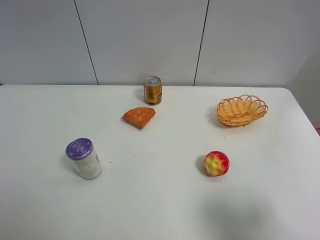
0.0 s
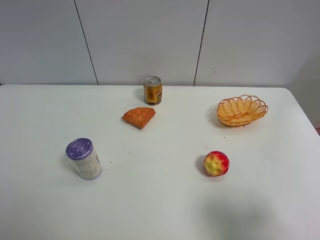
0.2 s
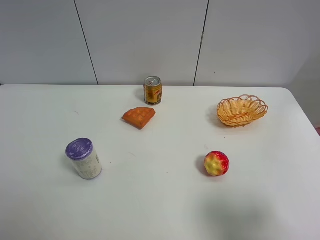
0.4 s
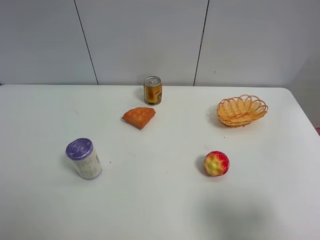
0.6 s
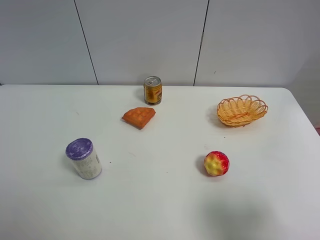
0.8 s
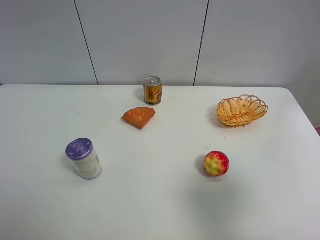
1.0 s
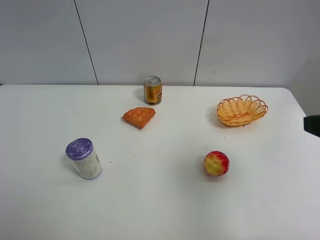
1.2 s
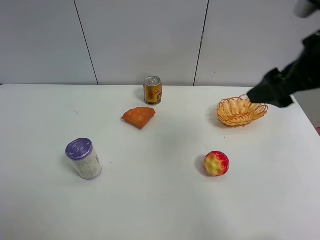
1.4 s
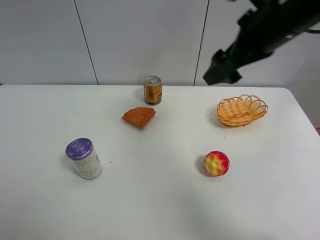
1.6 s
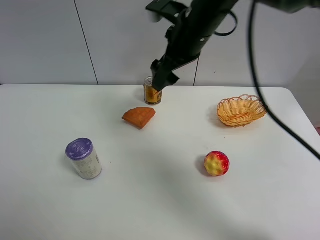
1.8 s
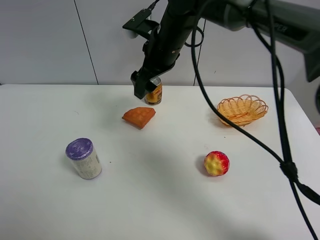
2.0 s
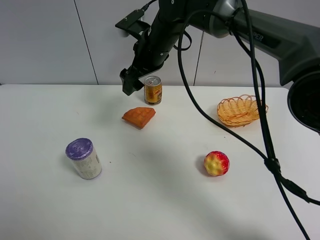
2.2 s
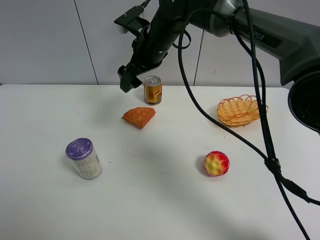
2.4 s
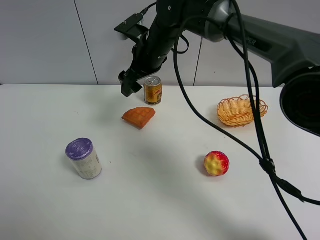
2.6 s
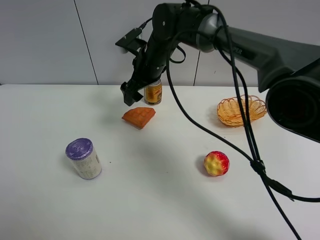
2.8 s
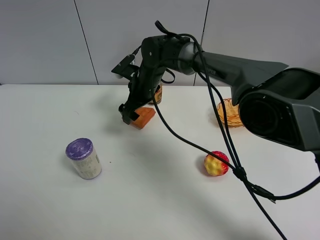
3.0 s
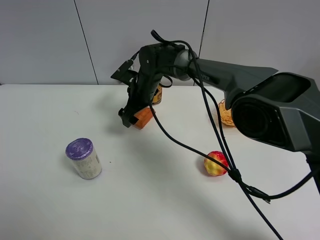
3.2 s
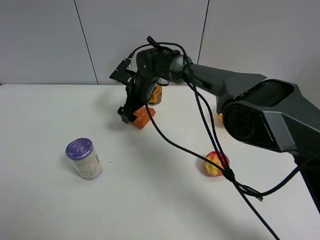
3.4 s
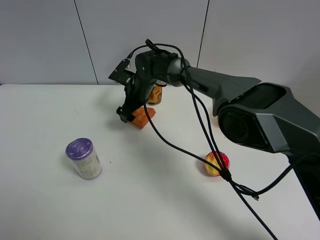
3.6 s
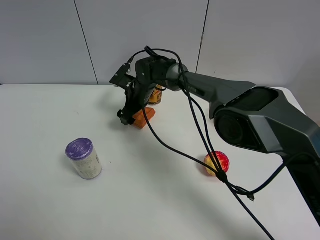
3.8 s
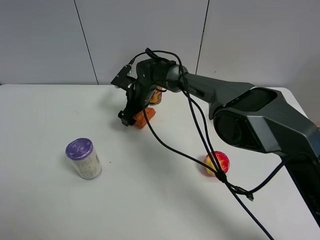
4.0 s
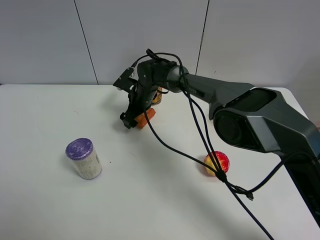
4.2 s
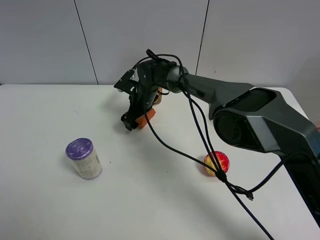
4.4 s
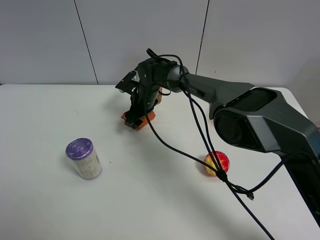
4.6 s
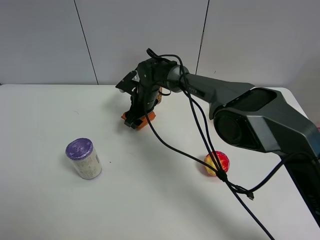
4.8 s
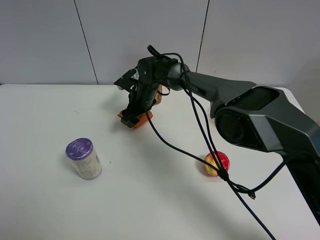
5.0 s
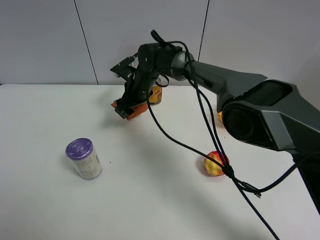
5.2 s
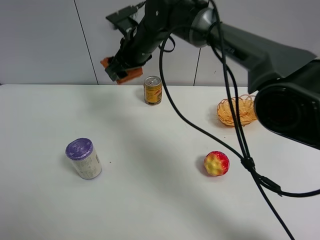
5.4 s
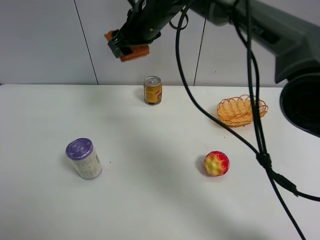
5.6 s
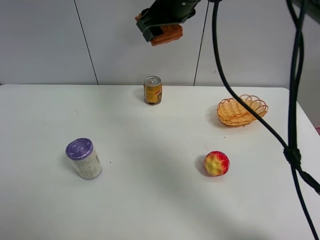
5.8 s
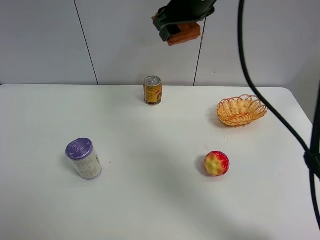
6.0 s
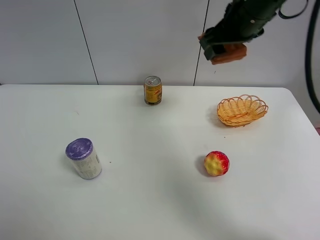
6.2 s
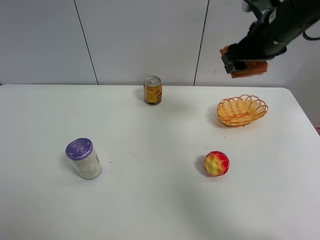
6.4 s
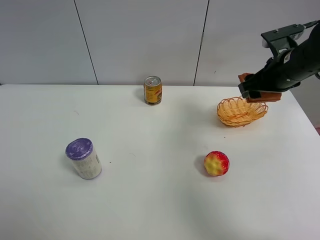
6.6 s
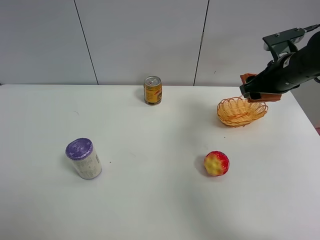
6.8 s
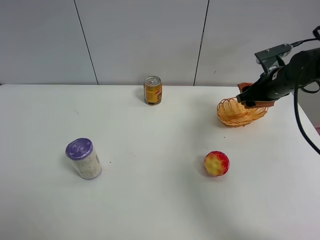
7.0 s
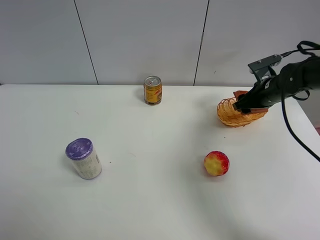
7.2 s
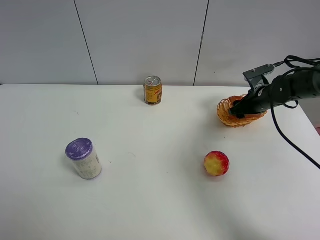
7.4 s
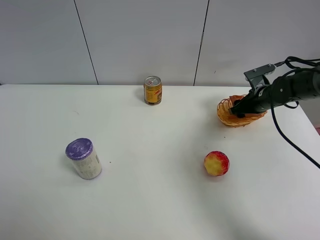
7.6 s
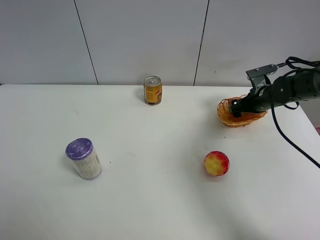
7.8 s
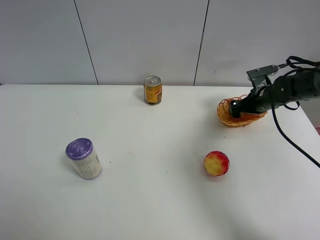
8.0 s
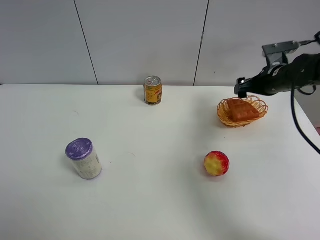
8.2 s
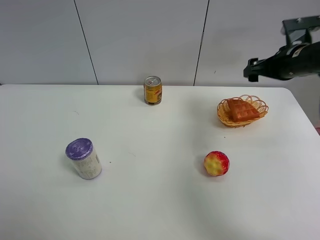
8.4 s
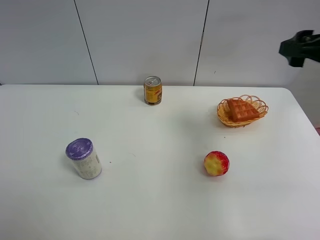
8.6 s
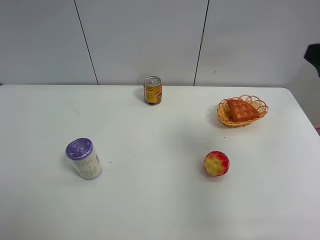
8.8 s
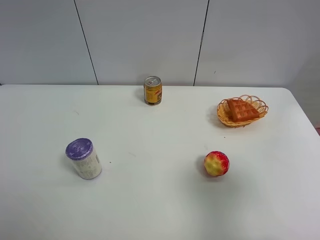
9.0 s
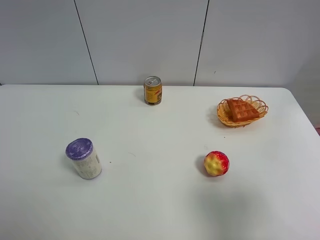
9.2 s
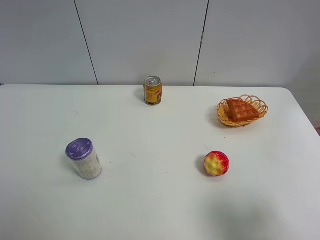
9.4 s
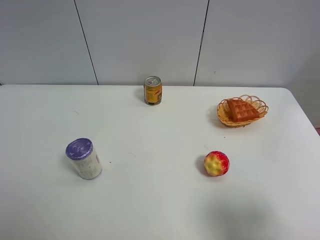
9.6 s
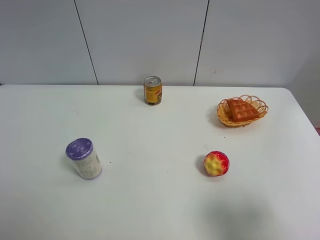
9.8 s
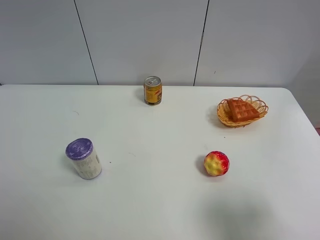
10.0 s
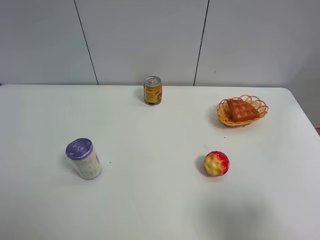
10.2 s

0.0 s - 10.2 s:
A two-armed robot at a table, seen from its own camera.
Task of the whole recording: Put the bakery in the basket.
Step, 0.0 s - 4.6 s: Grasp the bread with right gripper.
Step, 4.8 s - 8.4 s: Place the bread in the basket with right gripper.
0.0 s - 1.4 s: The right gripper shifts approximately 25 cm forward and upward.
1.4 s - 3.0 s: The right gripper heads to the left, downward and forward, covering some 35 cm.
3.0 s - 4.4 s: The right gripper heads downward, covering about 5 cm.
4.4 s - 5.8 s: The right gripper goes some 25 cm upward, and closes.
5.8 s - 7.2 s: The right gripper goes approximately 30 cm to the right and downward.
7.2 s - 8.8 s: The right gripper travels backward and upward by about 30 cm, and opens.
8.8 s - 10.2 s: The right gripper heads backward and downward, covering roughly 15 cm.
